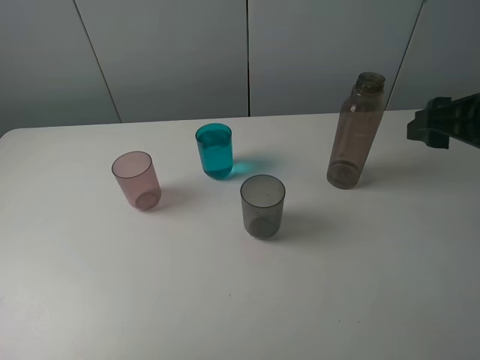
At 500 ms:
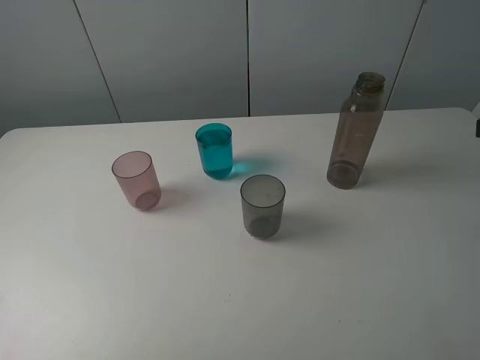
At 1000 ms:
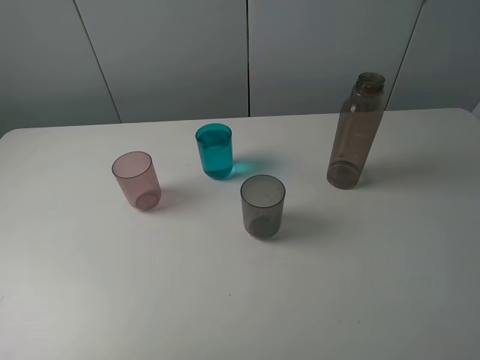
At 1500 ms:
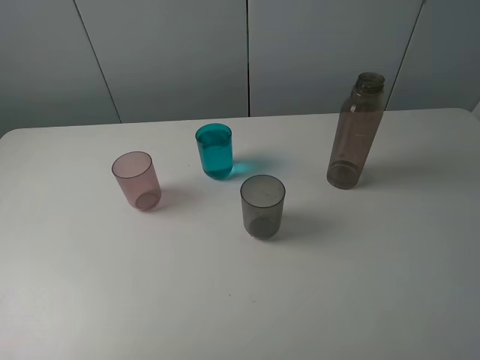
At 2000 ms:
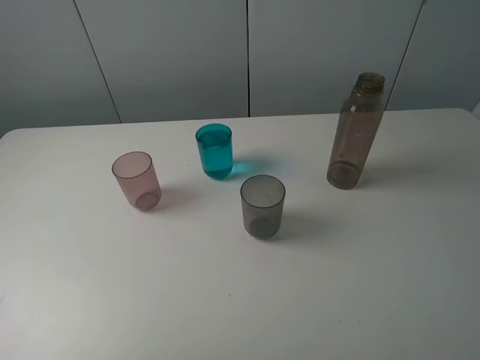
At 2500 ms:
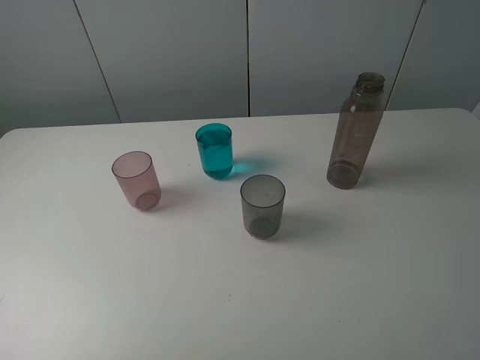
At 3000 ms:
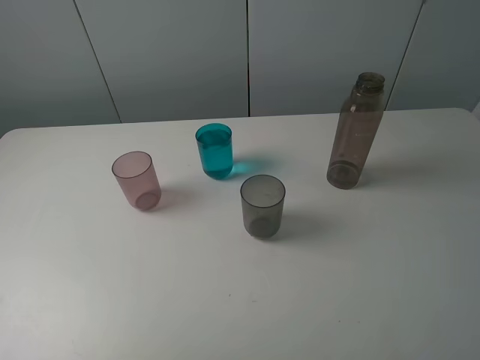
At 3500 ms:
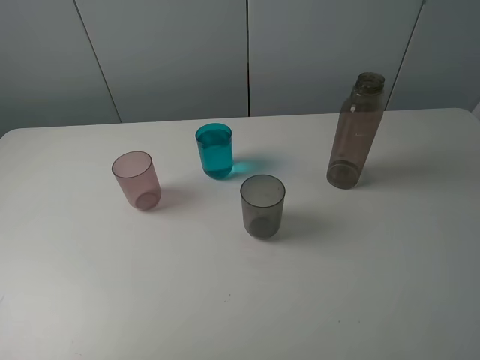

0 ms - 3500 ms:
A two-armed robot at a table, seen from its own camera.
Task of the whole recording: pick up the bottle filled with water and pour water into the middle cup of the three cups.
0 ms - 2000 ms: The right gripper heads backward, covering approximately 20 cm.
